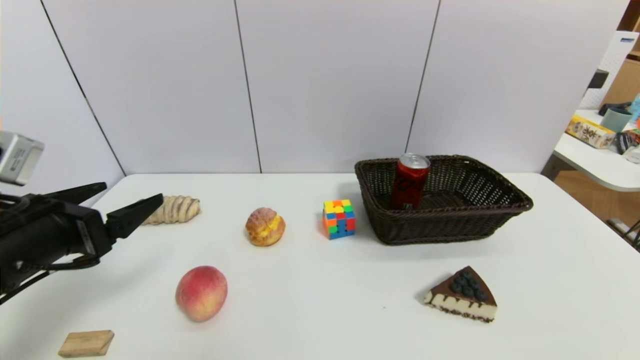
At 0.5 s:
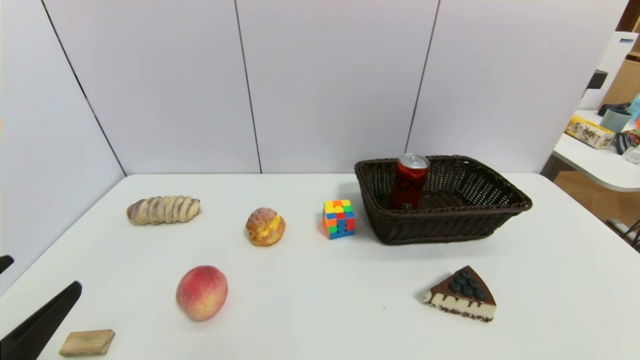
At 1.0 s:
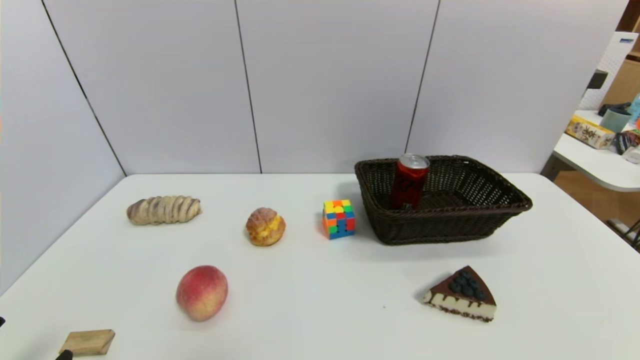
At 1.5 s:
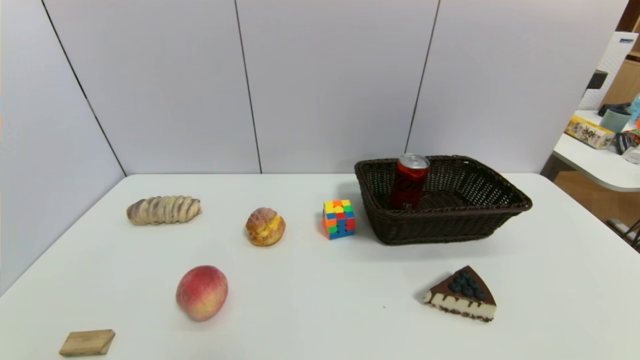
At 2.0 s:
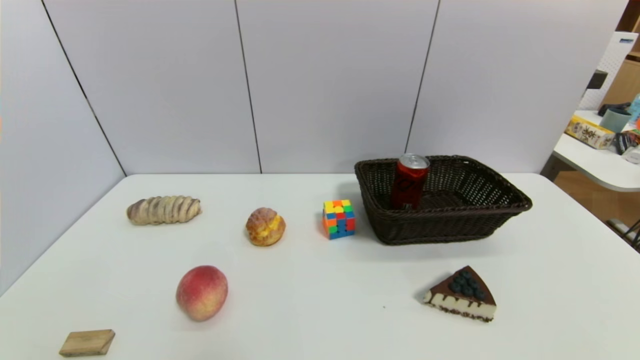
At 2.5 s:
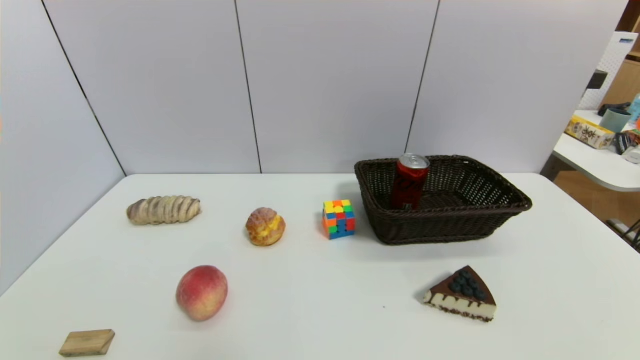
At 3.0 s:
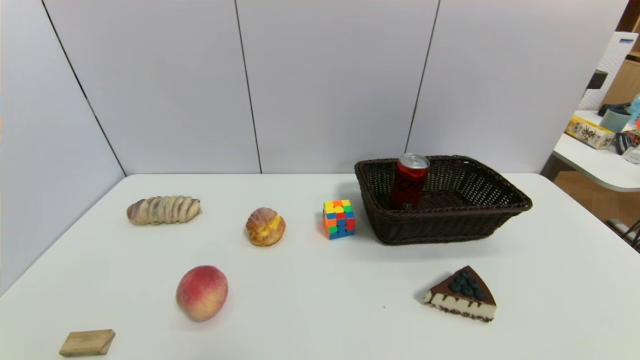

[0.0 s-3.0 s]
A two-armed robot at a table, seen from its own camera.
Task of the whole recording: use a gripper to pick the target object and place on the brown basket.
0.0 to 1.5 s: The left gripper shifts some 20 cm backward and downward.
1.5 to 3.0 s: The two grippers keep their place.
